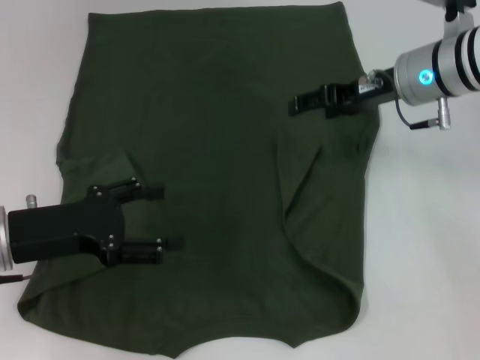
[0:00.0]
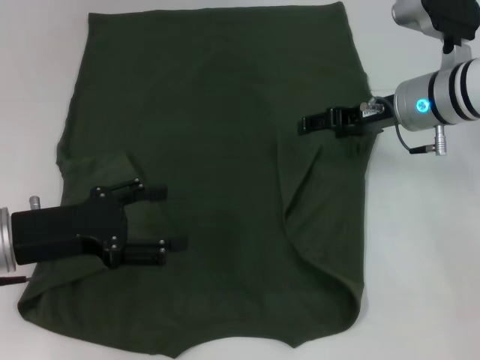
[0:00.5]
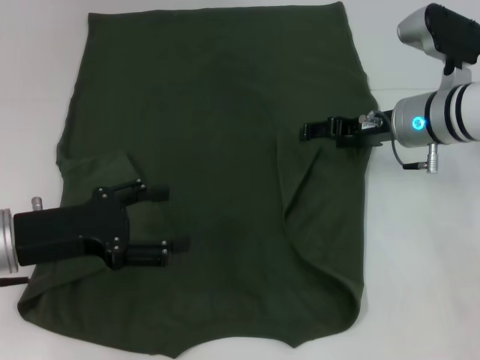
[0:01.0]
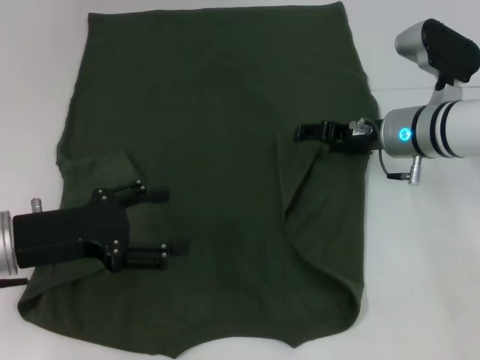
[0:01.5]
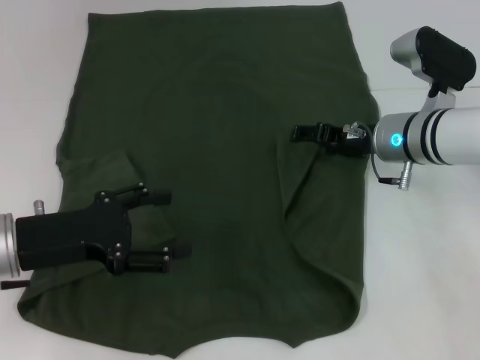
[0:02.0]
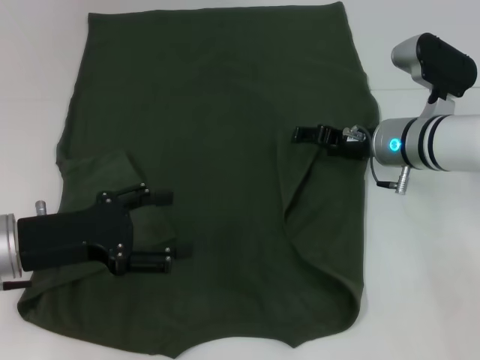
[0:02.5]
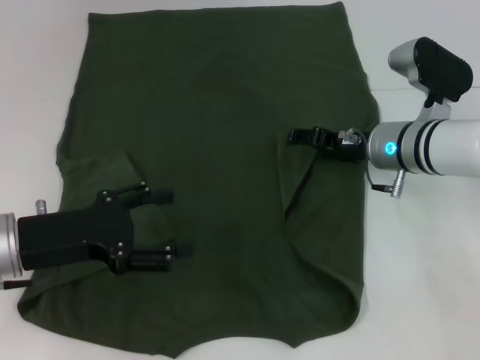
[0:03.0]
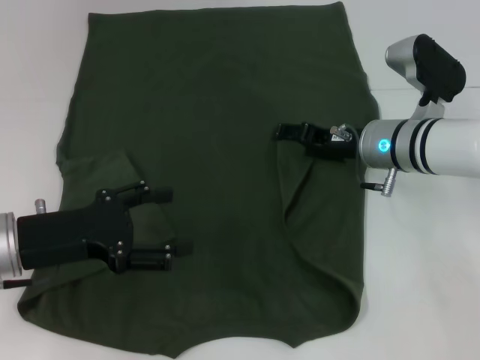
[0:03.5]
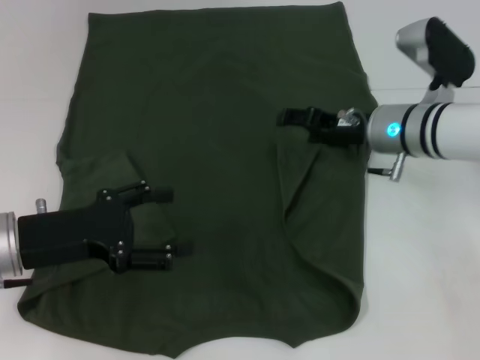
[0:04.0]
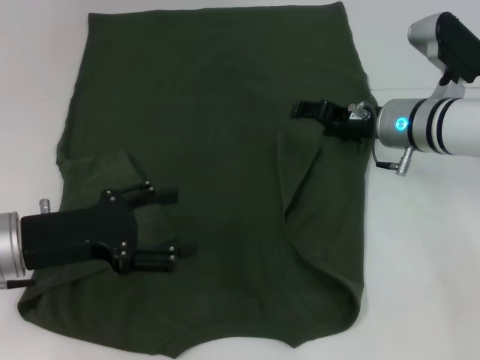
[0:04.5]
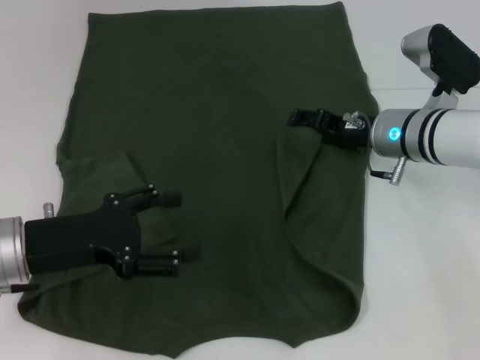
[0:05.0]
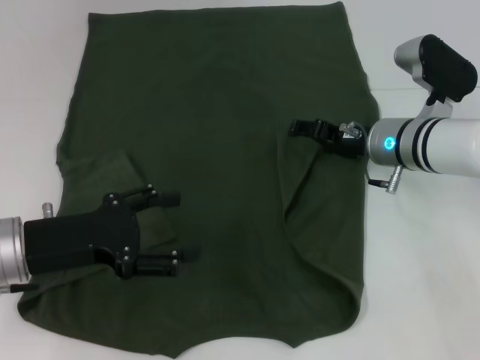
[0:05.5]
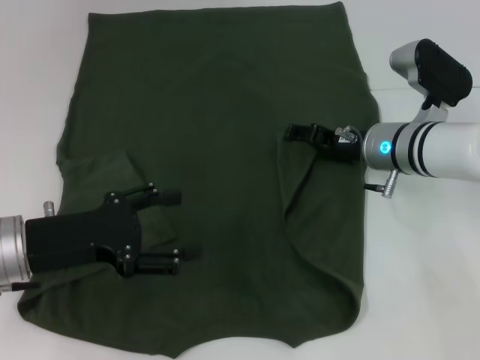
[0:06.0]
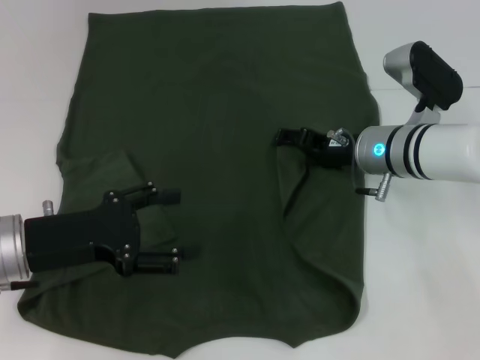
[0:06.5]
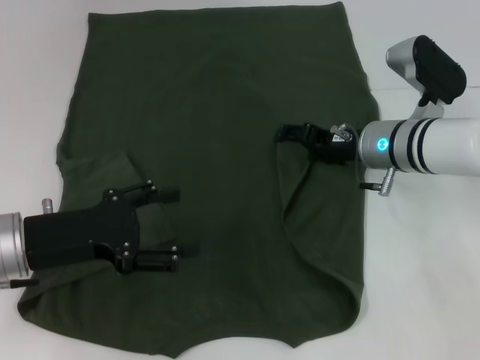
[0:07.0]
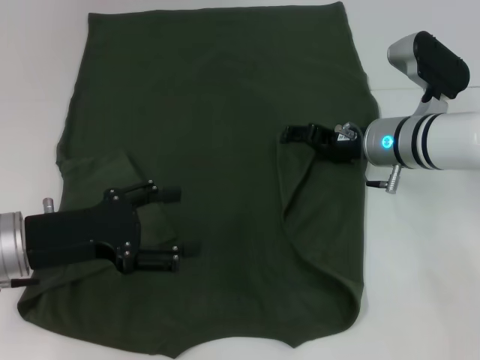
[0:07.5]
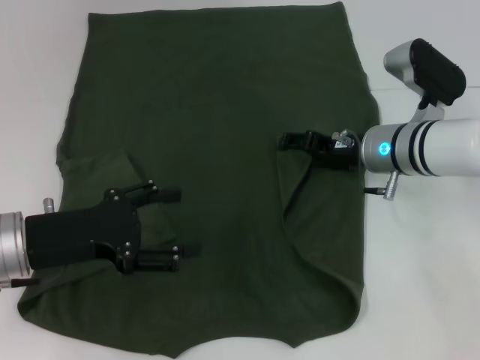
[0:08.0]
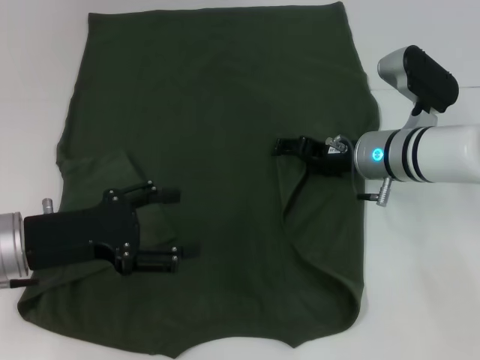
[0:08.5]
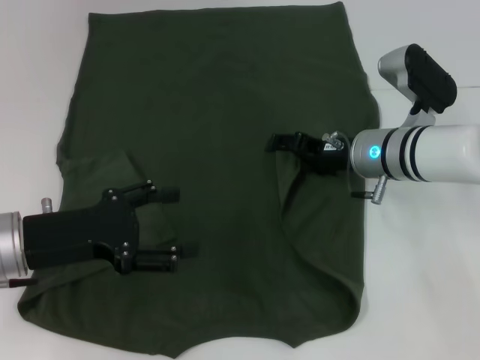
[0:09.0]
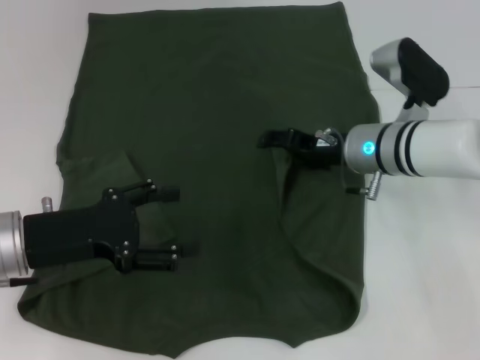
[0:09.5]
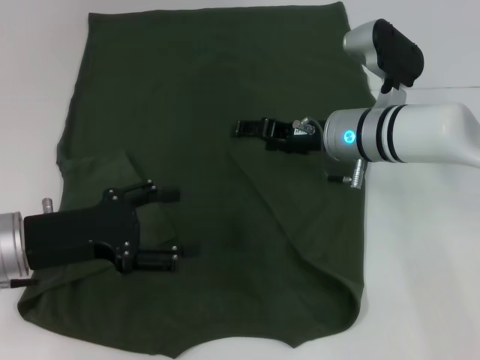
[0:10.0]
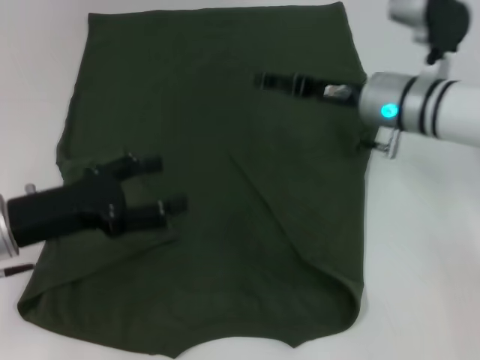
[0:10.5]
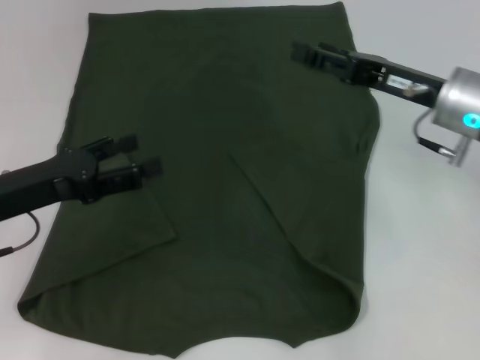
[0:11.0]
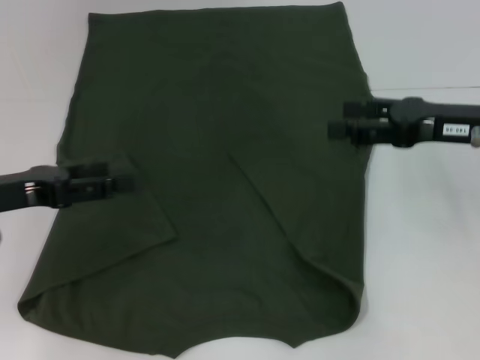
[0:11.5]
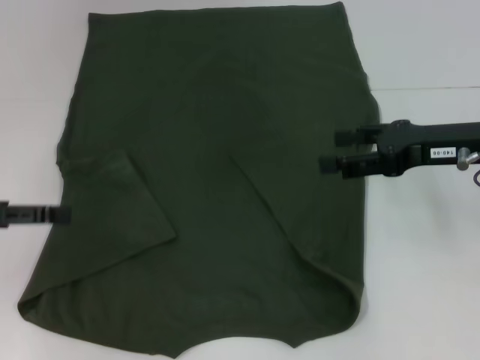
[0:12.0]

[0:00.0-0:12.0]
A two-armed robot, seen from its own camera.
Step, 0:00.0 to 0:10.0: Fold the bottom right sleeve with your right hand.
0:00.0 to 0:02.0: The right gripper moves downward, some 10 cm.
0:02.0 to 0:10.0: The grippers move only a little.
0:10.0 to 0:12.0: The left gripper shifts approximately 10 cm to the left and upward; the right gripper is displaced to the right and backward by roughly 15 cm.

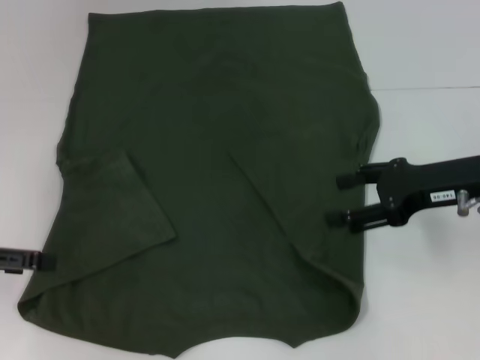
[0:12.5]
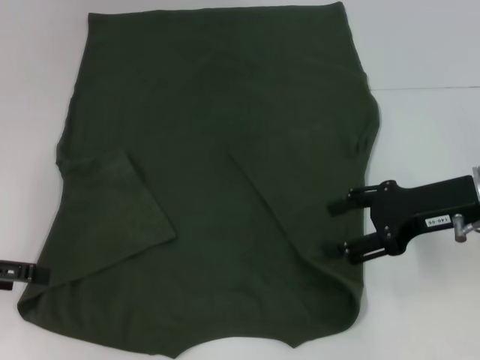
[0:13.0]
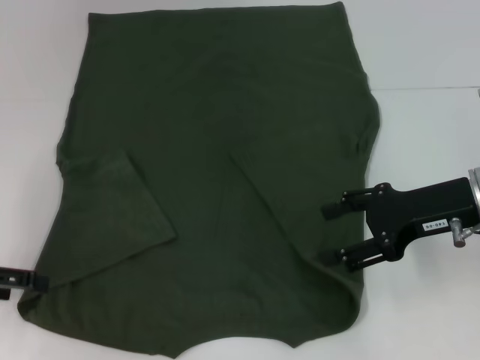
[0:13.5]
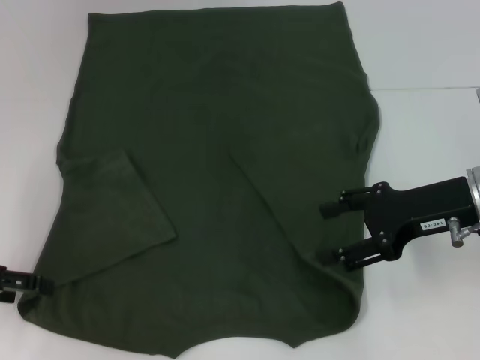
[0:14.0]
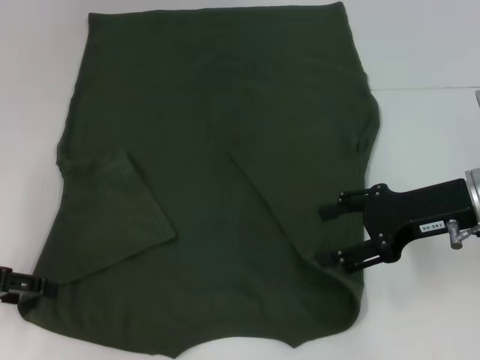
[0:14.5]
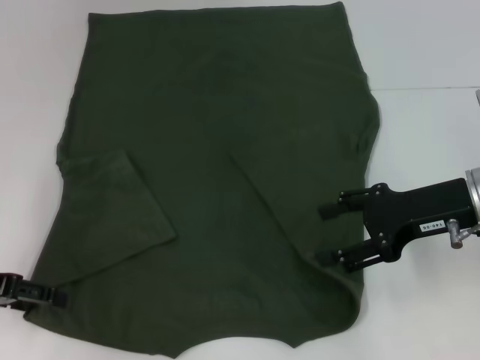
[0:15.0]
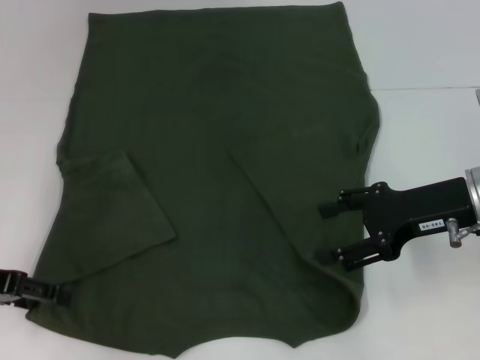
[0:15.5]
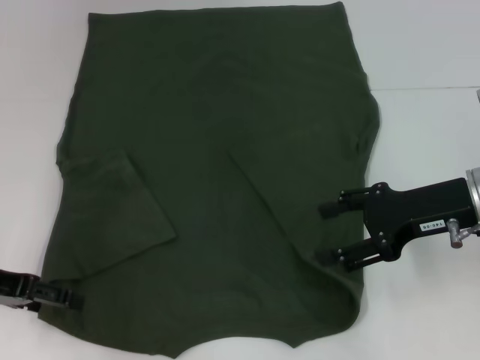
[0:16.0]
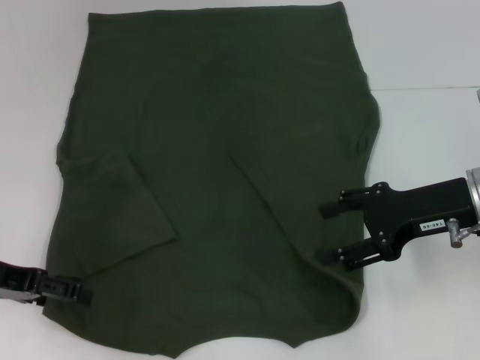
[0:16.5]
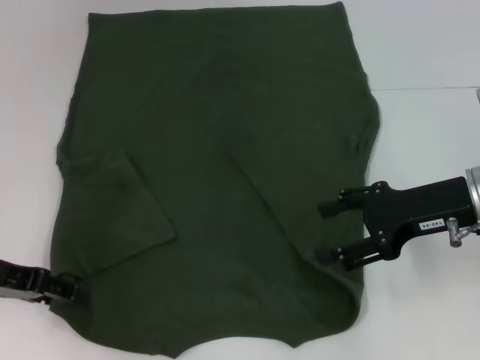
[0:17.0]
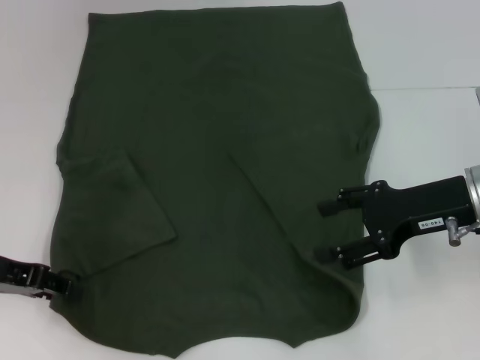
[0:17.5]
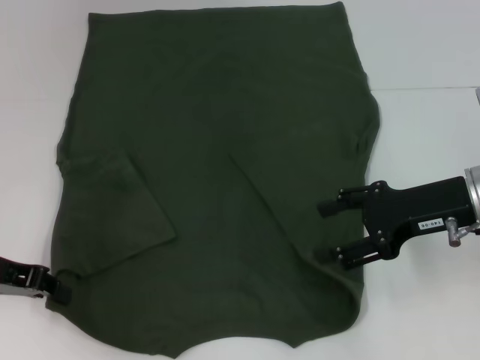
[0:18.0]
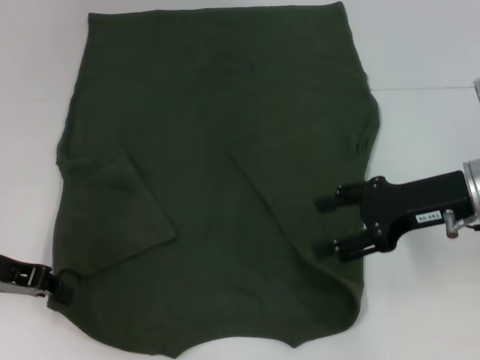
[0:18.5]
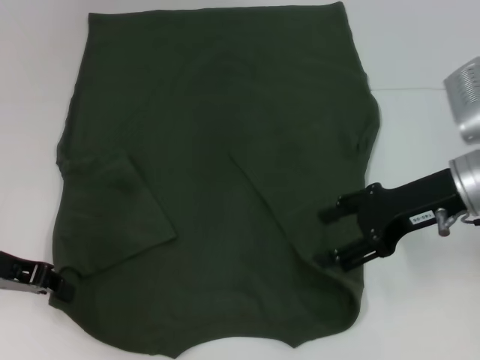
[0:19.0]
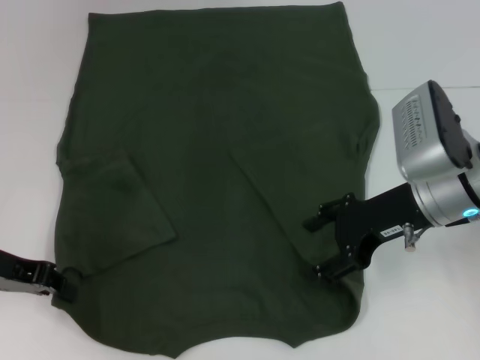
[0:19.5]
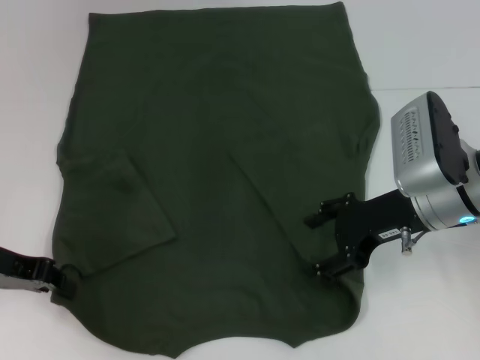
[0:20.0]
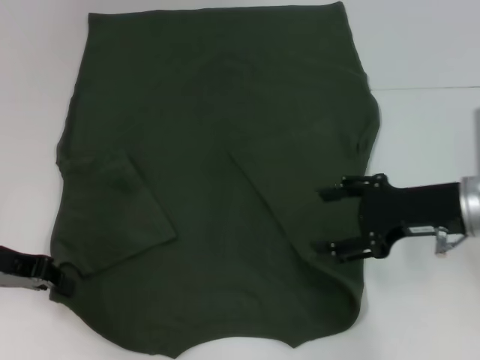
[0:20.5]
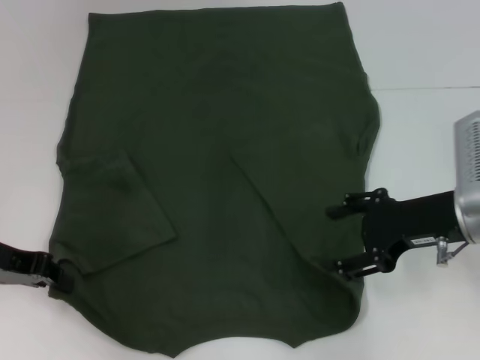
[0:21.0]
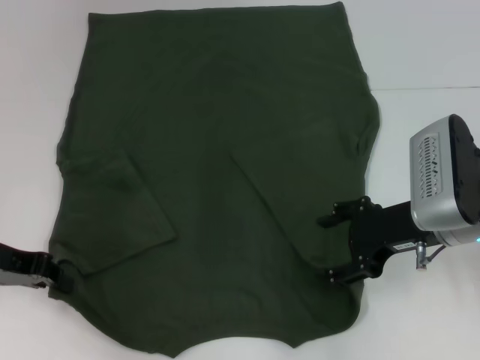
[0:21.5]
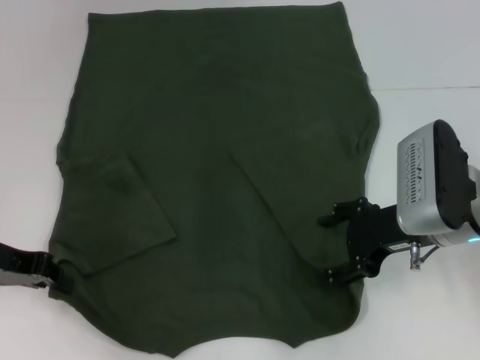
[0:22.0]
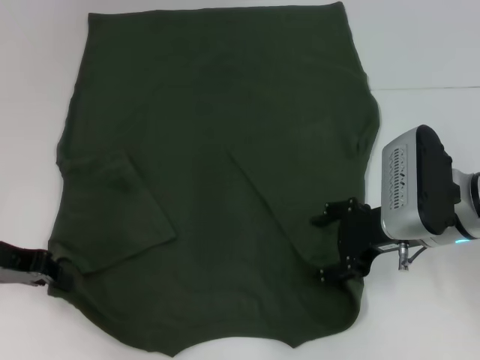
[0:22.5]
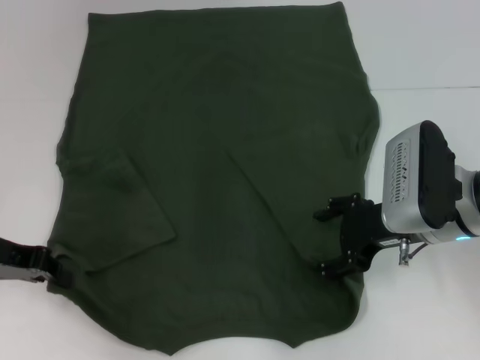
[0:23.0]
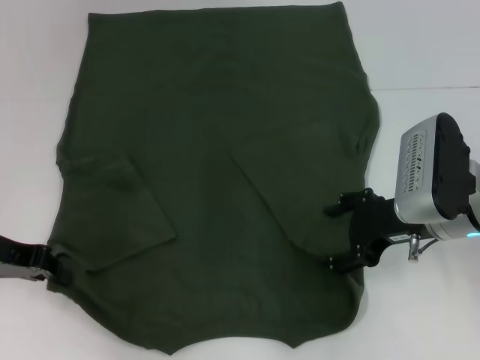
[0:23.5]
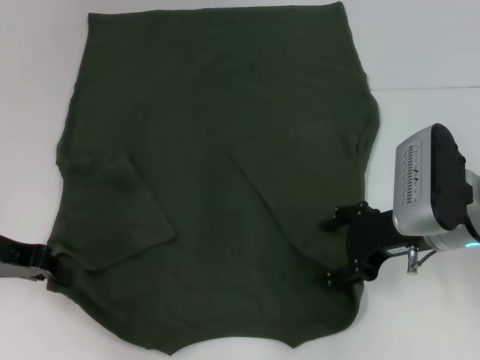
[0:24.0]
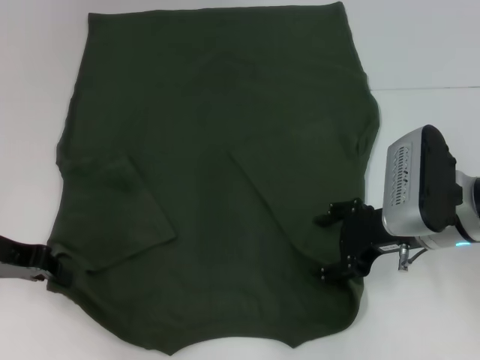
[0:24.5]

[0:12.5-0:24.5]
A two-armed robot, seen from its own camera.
Step, 0:12.5 to 0:18.0: Grab the bottom left corner with your left hand.
0:12.5 to 0:16.5: The grippers stay close to where they were, moving slightly.
0:16.5 to 0:18.5: The left gripper closes its fingers.
0:22.5 to 0:24.5: There are only small adjustments of the grippers.

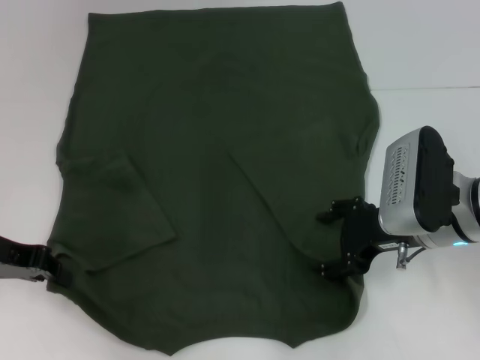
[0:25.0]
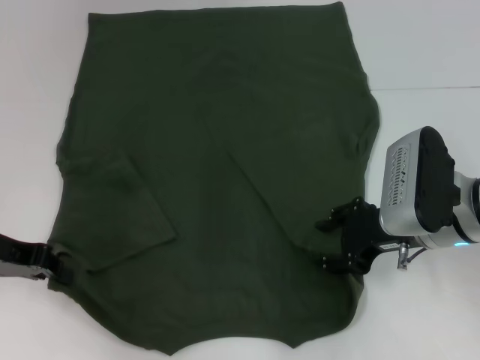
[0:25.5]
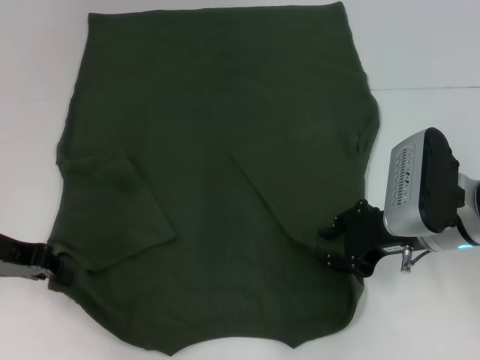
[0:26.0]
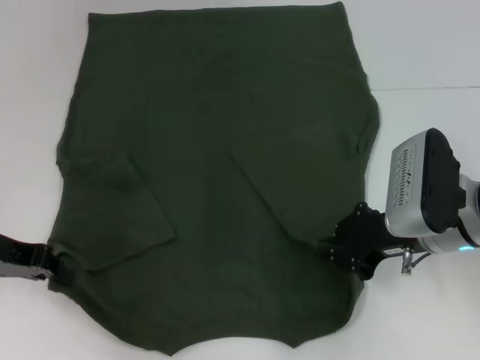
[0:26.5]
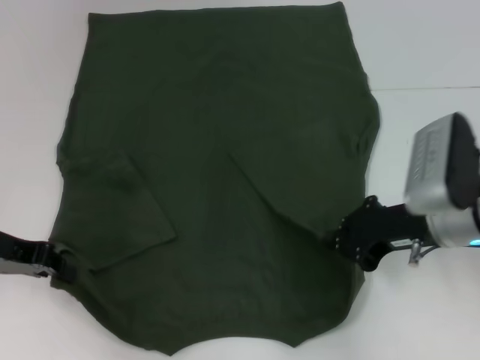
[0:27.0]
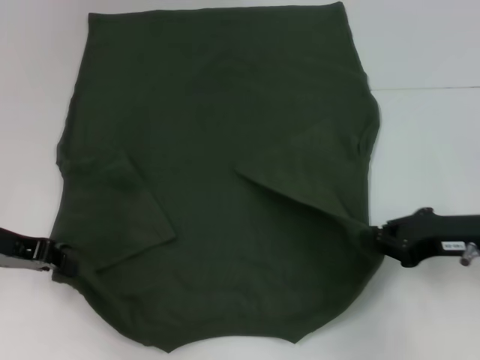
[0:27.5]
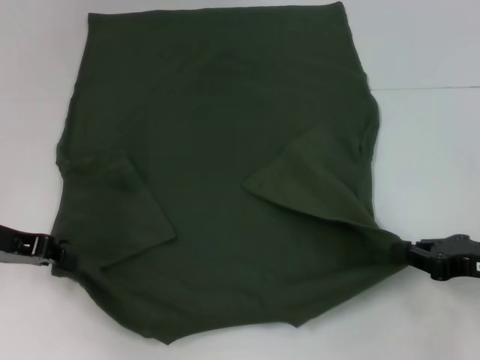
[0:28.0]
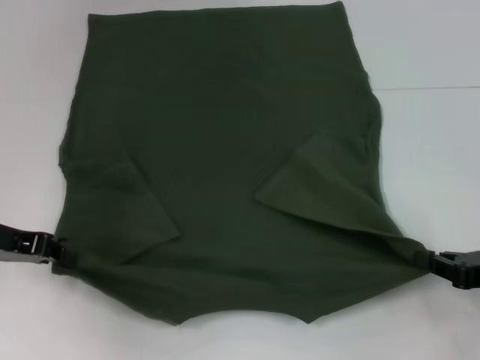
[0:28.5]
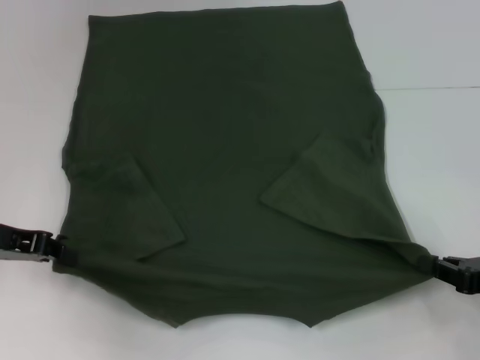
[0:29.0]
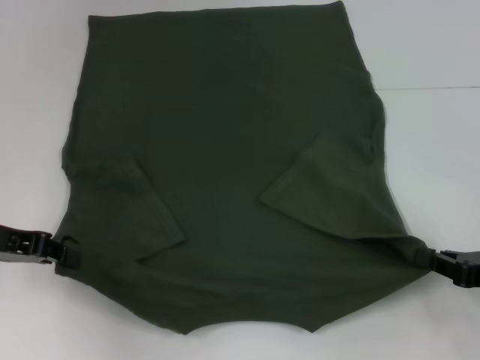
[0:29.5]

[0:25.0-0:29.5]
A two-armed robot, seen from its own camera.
Step, 0:25.0 to 0:27.0: Grab the bottom right corner with your right hand.
0:25.0 to 0:27.0: The right gripper closes its fingers.
0:27.0 to 0:29.5: The right gripper travels to the right, backward and downward by some 15 cm.
